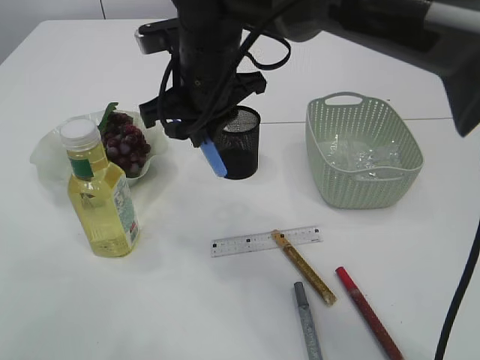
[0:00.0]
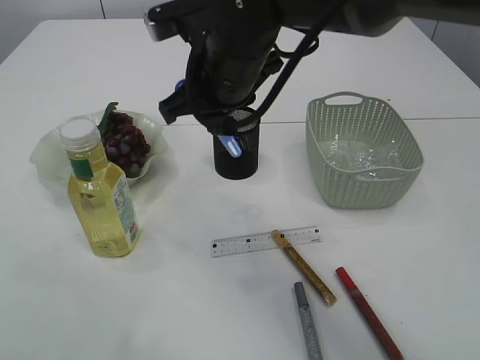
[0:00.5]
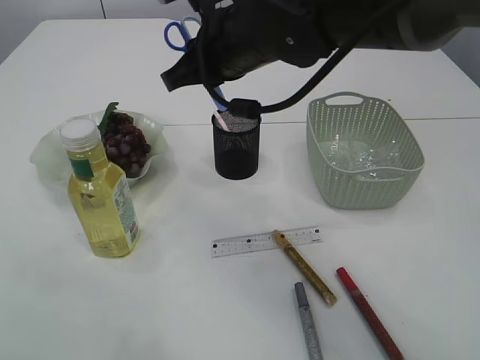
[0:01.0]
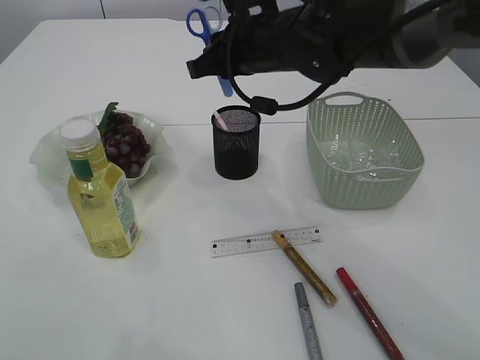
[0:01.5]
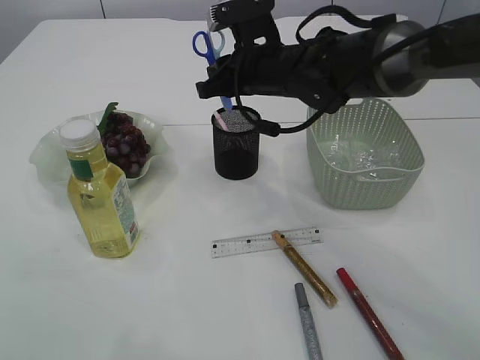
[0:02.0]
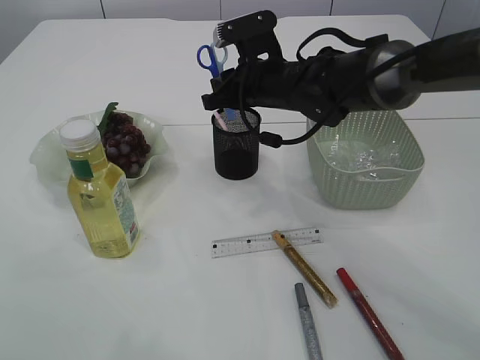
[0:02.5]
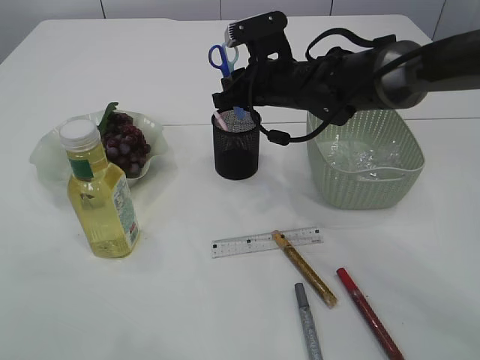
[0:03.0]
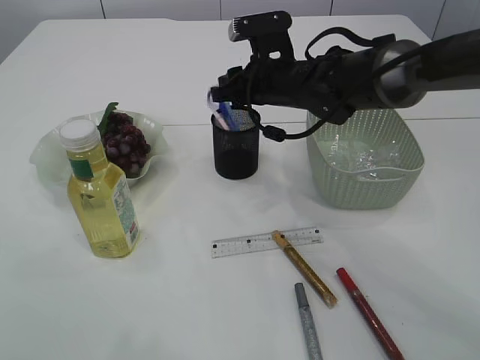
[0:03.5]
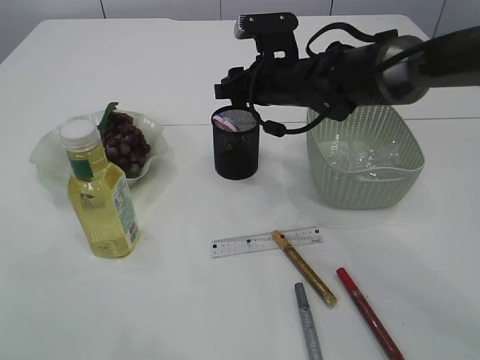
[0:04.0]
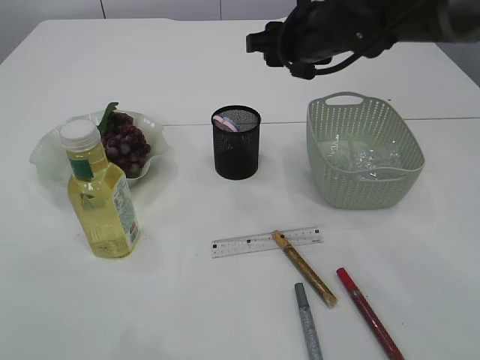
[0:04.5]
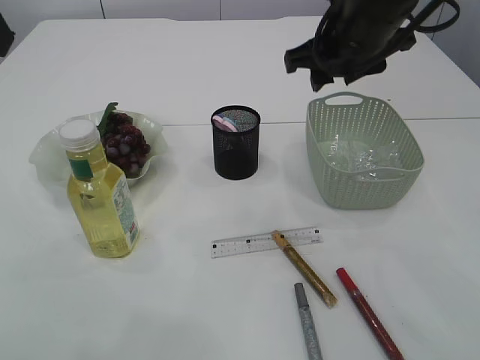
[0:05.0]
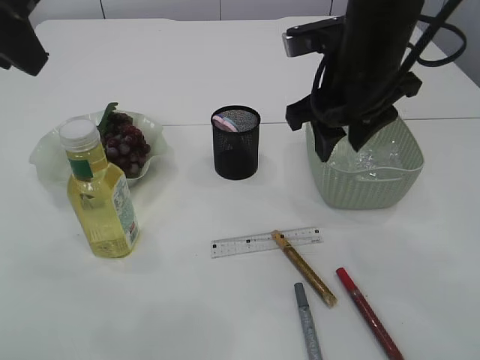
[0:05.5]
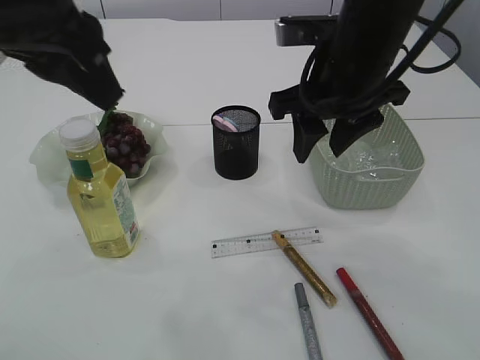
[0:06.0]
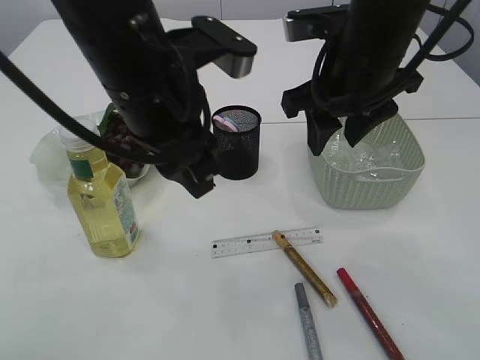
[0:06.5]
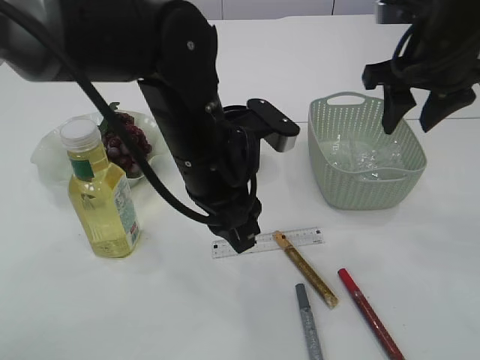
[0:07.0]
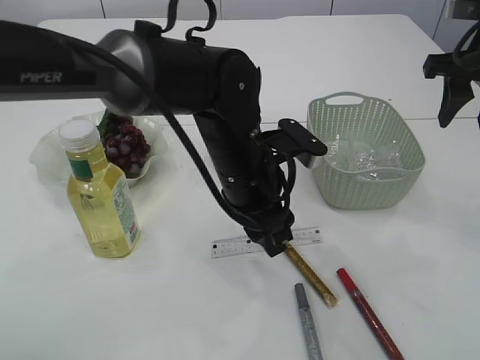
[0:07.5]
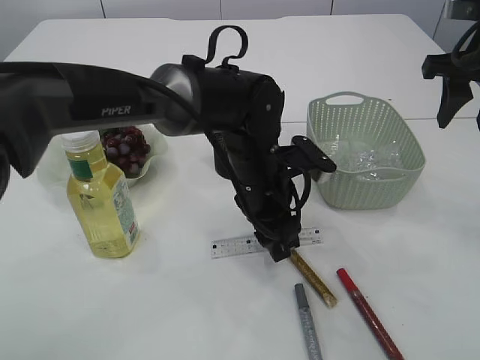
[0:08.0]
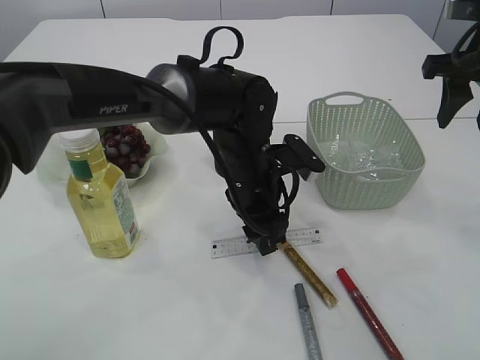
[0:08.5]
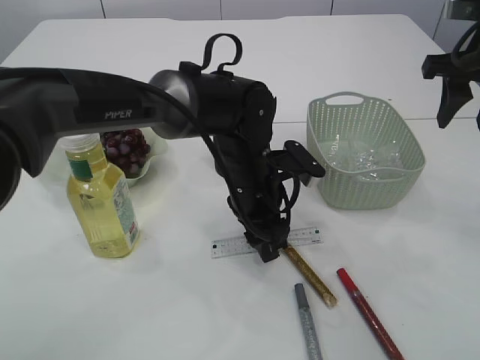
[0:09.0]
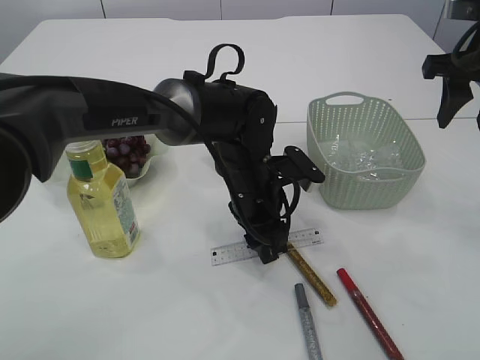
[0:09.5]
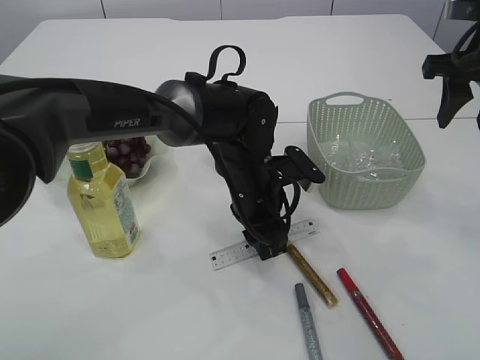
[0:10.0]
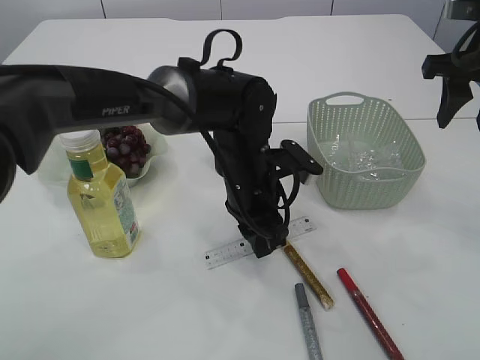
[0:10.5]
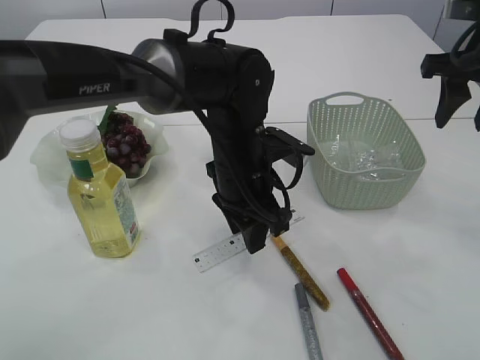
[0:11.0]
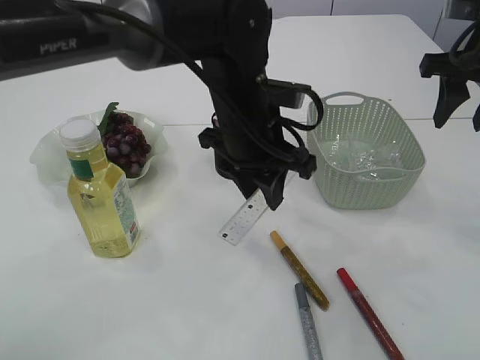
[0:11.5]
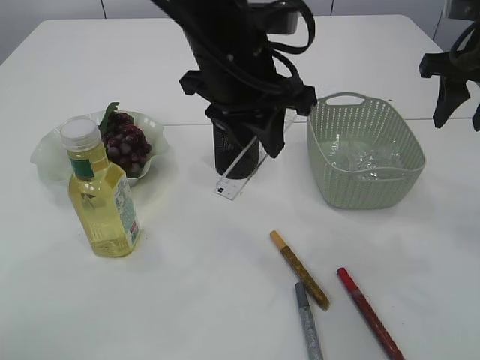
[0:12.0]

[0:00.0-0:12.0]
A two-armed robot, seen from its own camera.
Step, 0:00.0 to 0:04.0: Place the blue scissors into the pen holder.
Step, 0:04.5 to 0:11.0: pick up the ruler.
0:00.0 to 0:02.0: The right gripper shifts some 10 cm to the right and forward.
0:02.0 to 0:04.0: The right gripper opens up.
0:04.0 to 0:06.0: The right gripper moves backward and upward, approximately 15 cm. The left gripper heads to the right and downward, covering about 10 cm.
0:06.0 to 0:08.0: The right gripper shifts about 15 cm to the right, while the left gripper moves downward and to the right, approximately 30 cm, and opens its fingers.
0:08.0 to 0:10.0: The left gripper closes its fingers.
0:10.0 to 0:12.0: The left gripper goes approximately 20 cm upward.

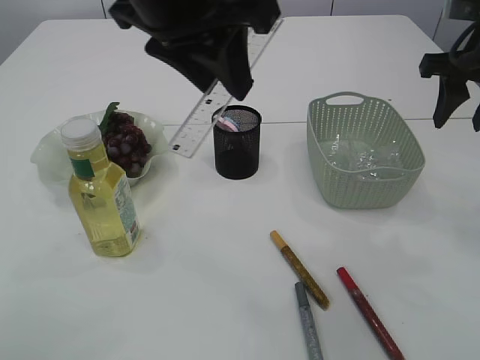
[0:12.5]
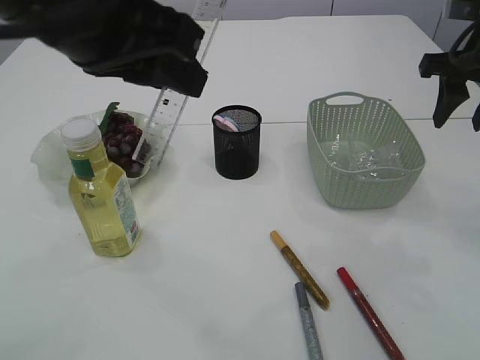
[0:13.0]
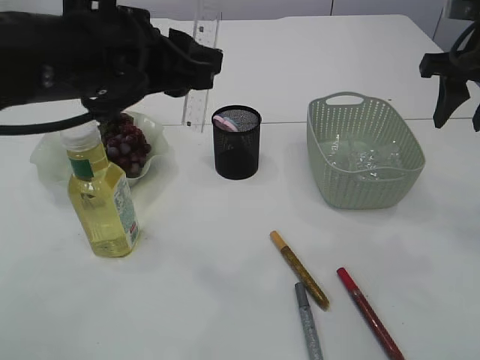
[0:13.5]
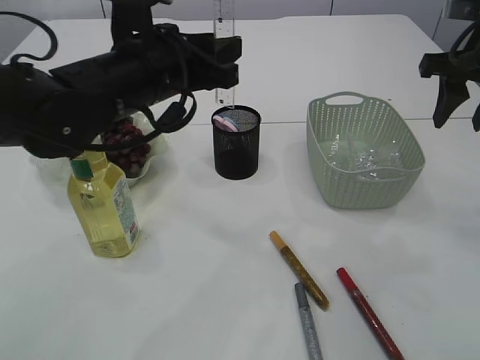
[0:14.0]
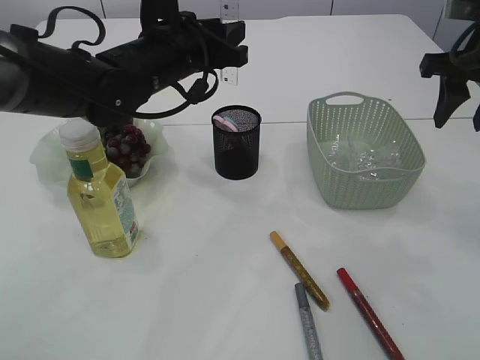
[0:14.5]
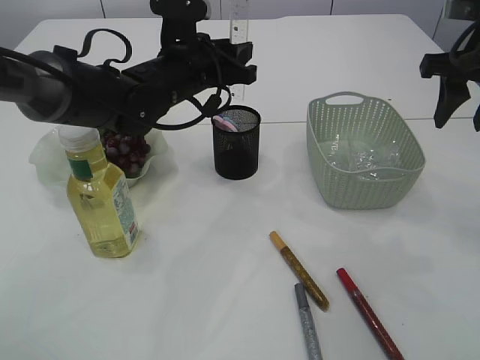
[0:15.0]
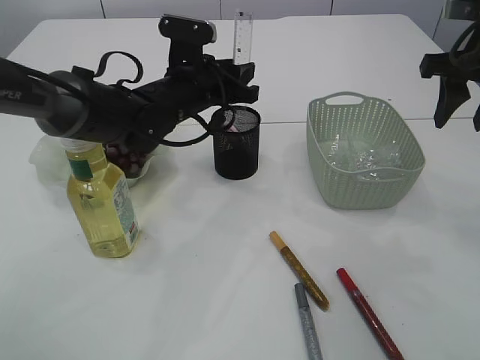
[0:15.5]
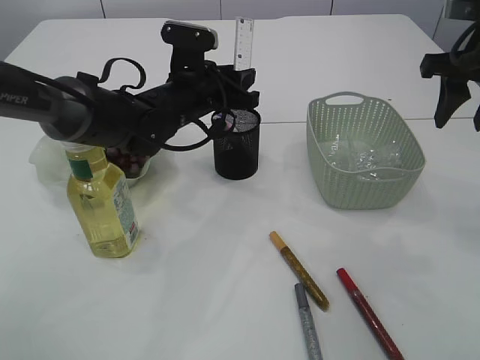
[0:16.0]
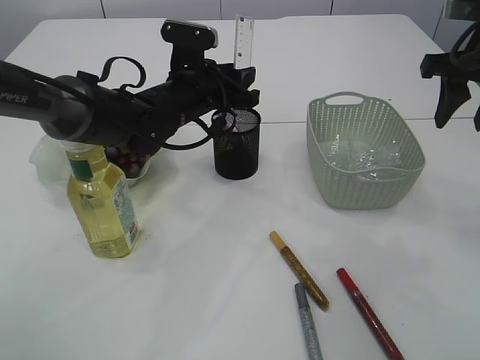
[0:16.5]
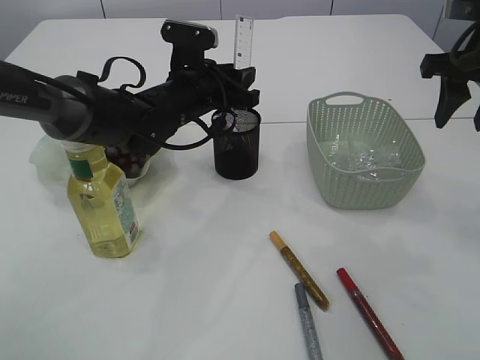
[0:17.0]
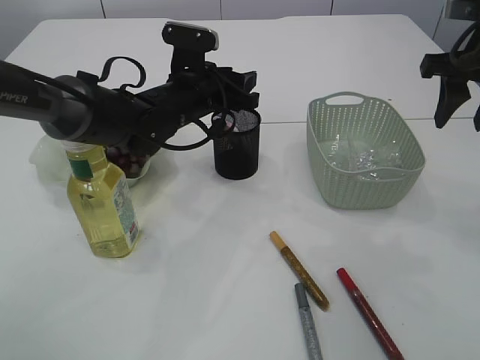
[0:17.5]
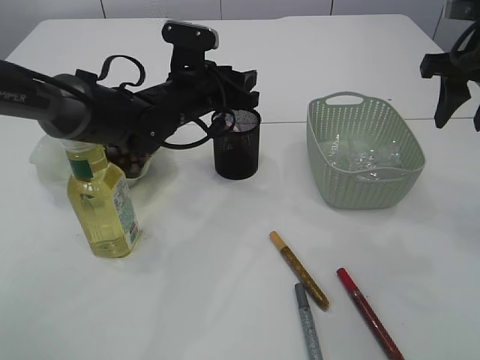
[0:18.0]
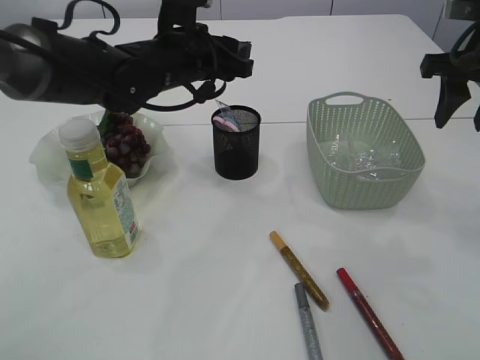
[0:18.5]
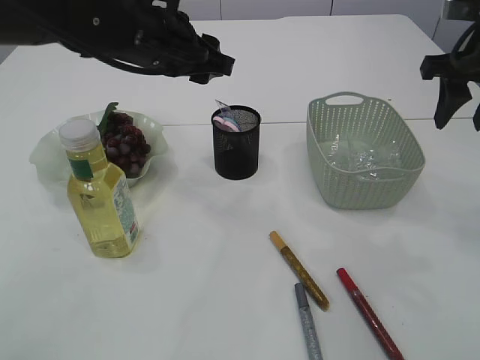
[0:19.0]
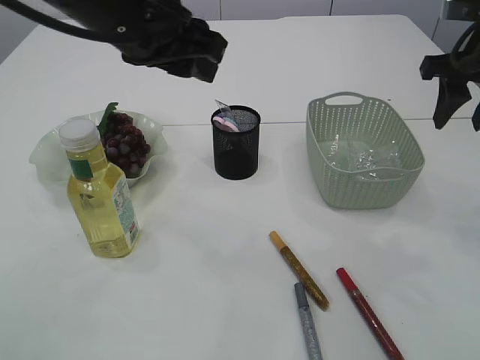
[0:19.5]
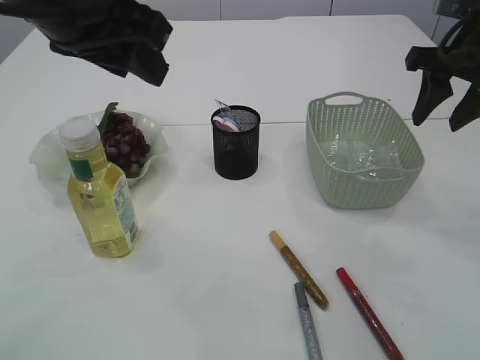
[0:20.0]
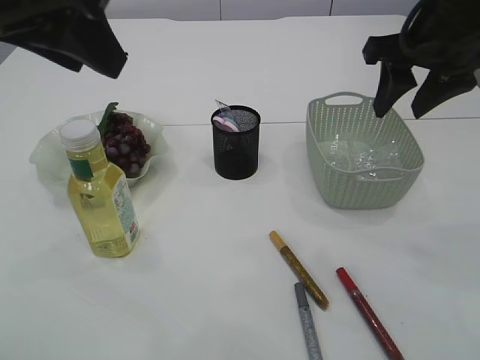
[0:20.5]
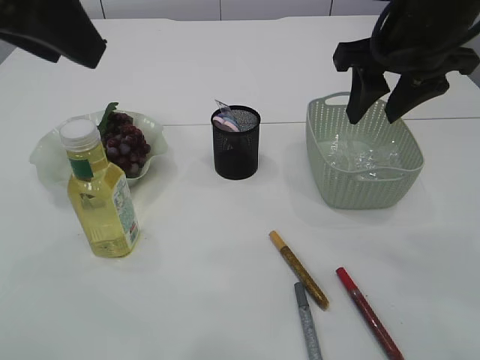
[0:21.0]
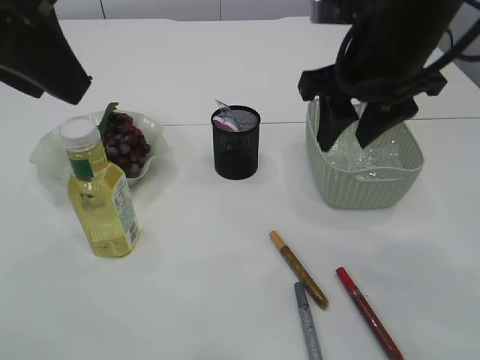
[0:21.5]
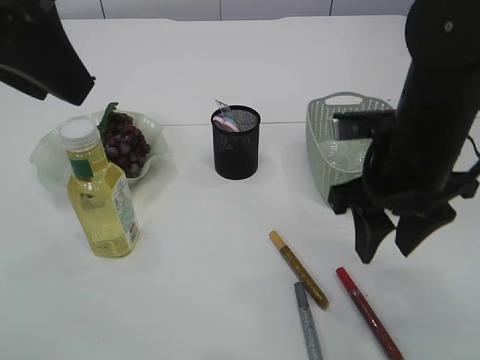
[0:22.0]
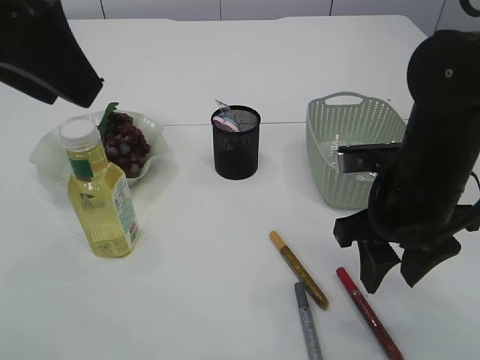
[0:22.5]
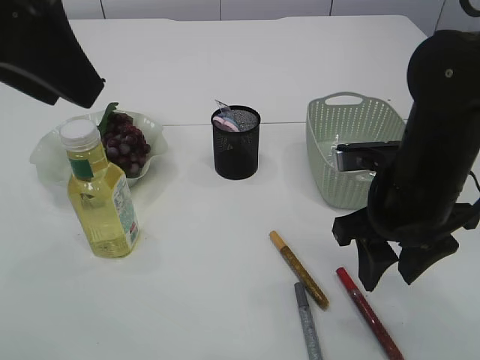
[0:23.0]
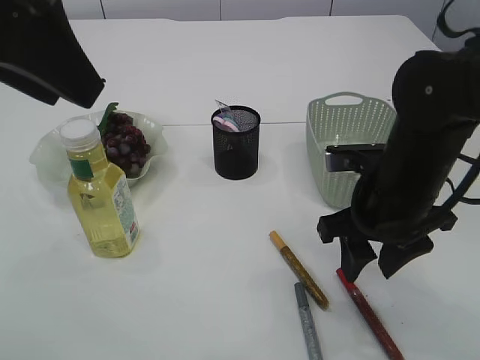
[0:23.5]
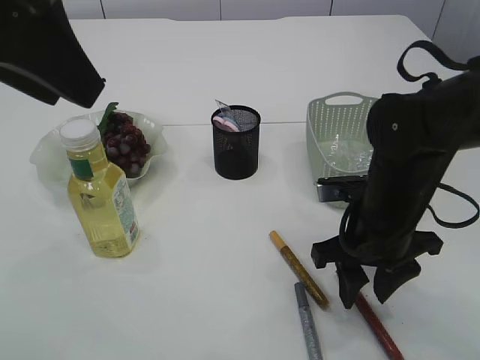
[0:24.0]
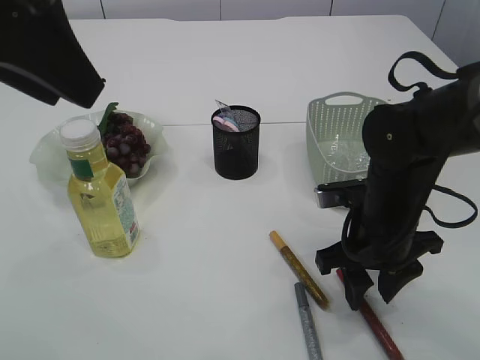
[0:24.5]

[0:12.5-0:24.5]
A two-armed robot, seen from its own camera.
Step, 0:12.5 to 0:18.0: Place the ruler into the pen holder.
0:12.5 to 0:14.5: The left gripper is displaced downward and forward by some 20 cm.
0:14.5 to 0:16.5: The left gripper travels downward by roughly 5 cm.
0:16.5 to 0:18.5: The left gripper moves upward, approximately 5 cm.
0:18.5 to 0:20.5: The left gripper travels backward and upward by roughly 25 cm. Meanwhile the right gripper goes approximately 5 cm to the left.
0:20.5 to 0:22.5: The right gripper shifts roughly 15 cm downward and backward.
0:22.5 to 0:24.5: The right gripper is displaced downward by about 5 cm.

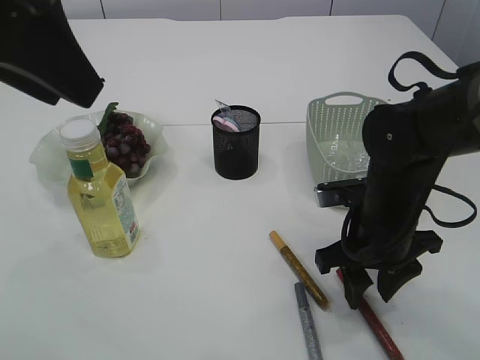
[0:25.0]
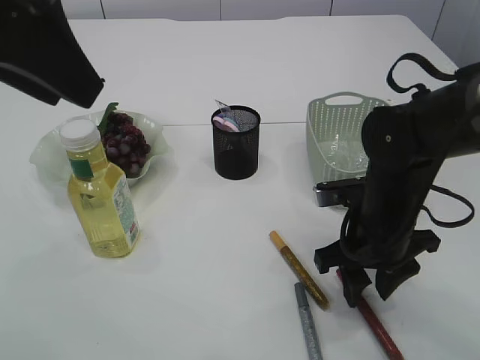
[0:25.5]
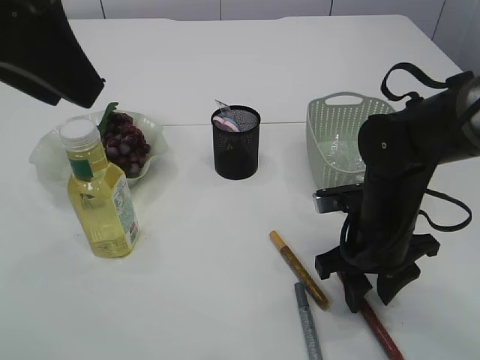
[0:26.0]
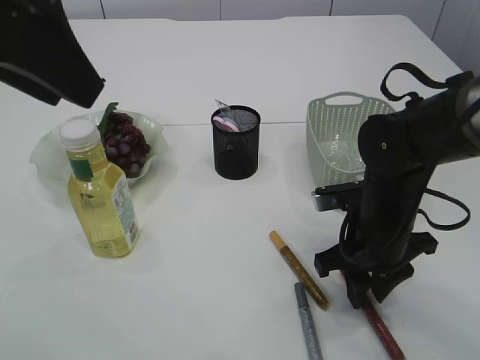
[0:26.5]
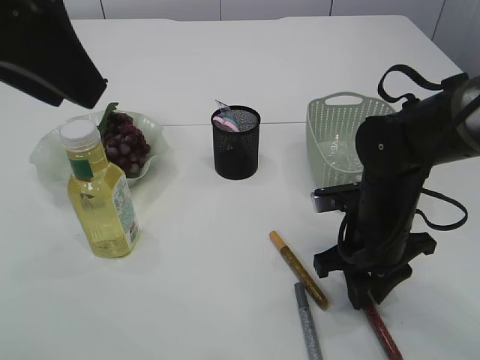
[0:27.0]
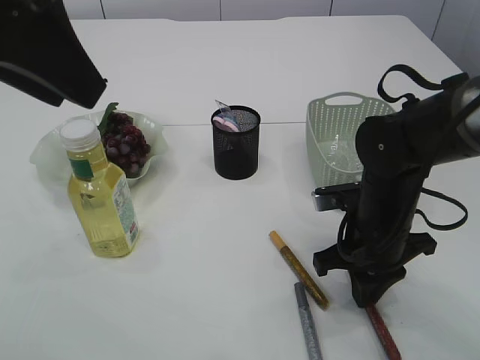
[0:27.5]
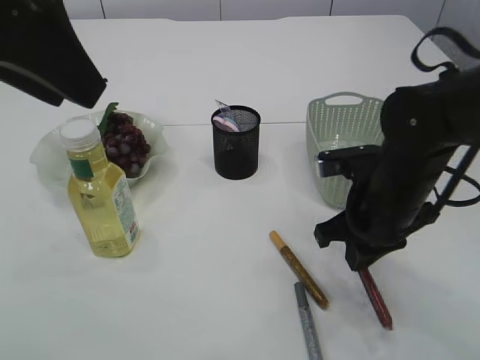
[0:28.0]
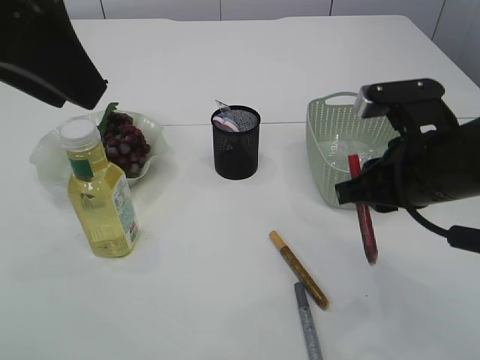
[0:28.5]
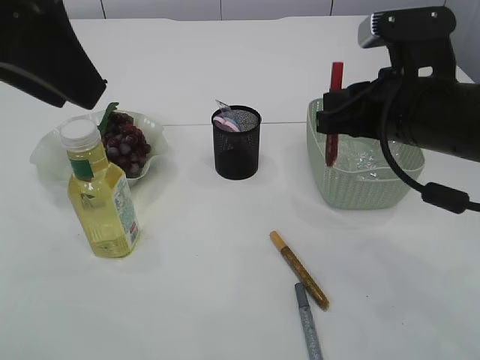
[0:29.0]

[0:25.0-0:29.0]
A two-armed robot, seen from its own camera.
Step, 0:25.0 to 0:28.5: pick up the red glue.
0:25.0 to 0:27.0: The grippers stay close to where they were, moving slightly.
0:27.0 to 0:29.0: The right gripper shifts about 15 cm upward.
